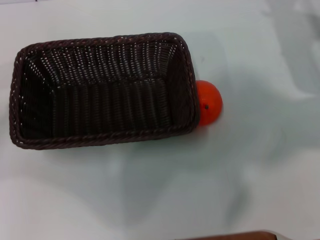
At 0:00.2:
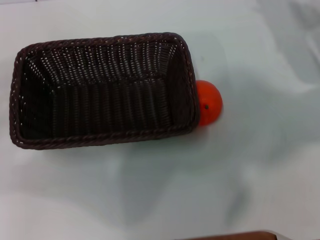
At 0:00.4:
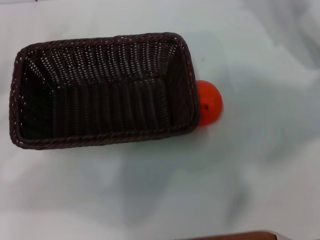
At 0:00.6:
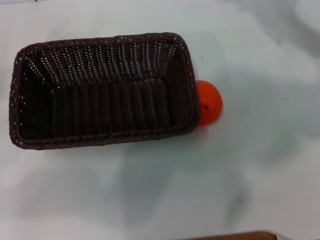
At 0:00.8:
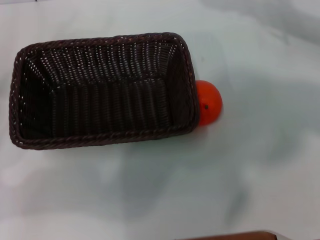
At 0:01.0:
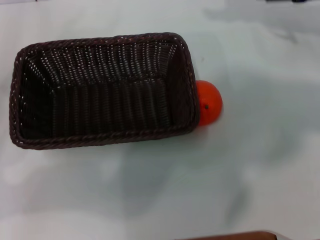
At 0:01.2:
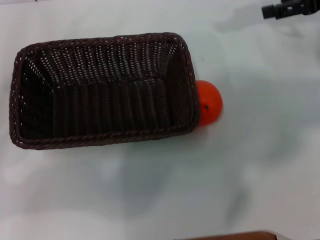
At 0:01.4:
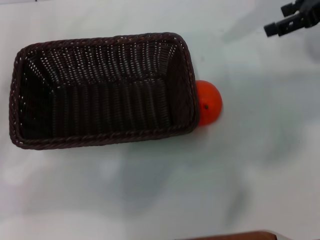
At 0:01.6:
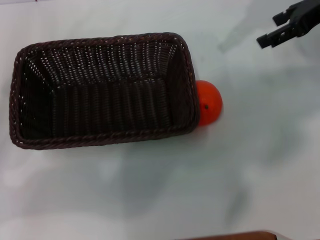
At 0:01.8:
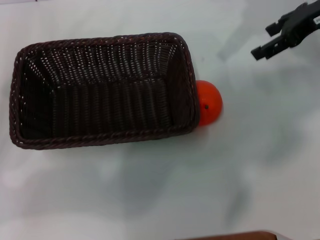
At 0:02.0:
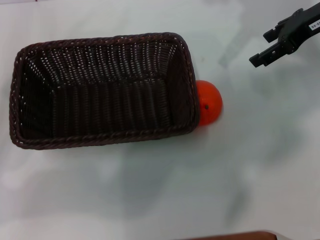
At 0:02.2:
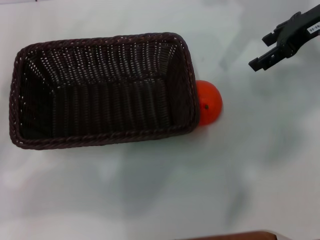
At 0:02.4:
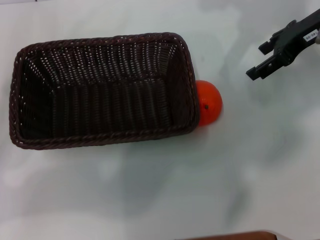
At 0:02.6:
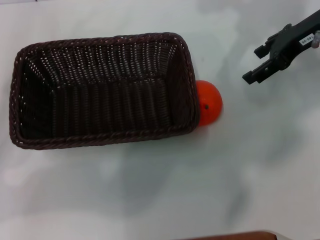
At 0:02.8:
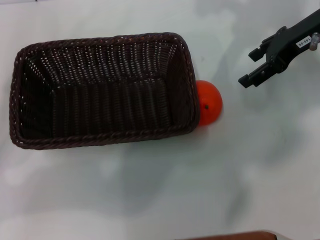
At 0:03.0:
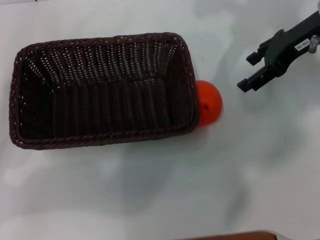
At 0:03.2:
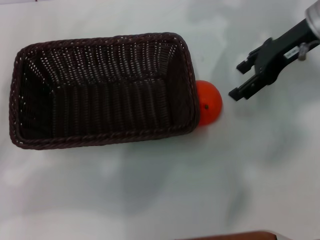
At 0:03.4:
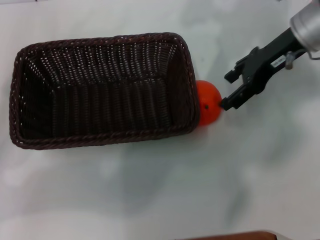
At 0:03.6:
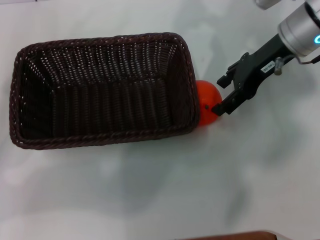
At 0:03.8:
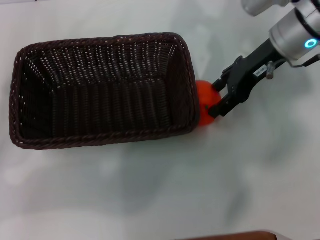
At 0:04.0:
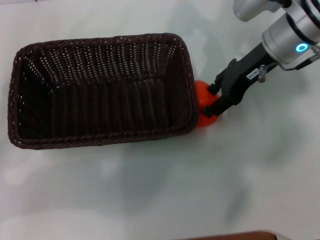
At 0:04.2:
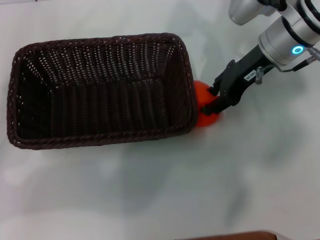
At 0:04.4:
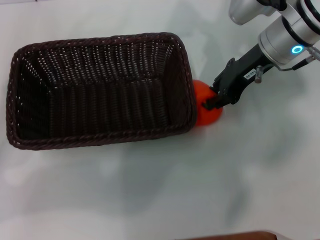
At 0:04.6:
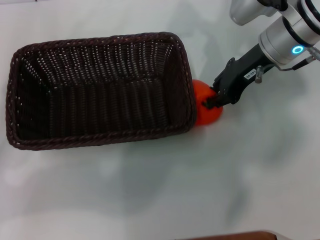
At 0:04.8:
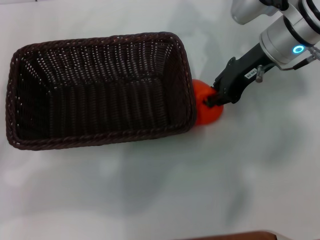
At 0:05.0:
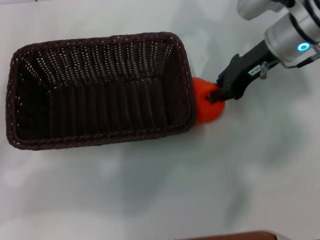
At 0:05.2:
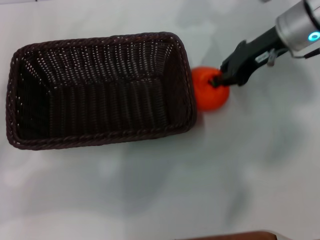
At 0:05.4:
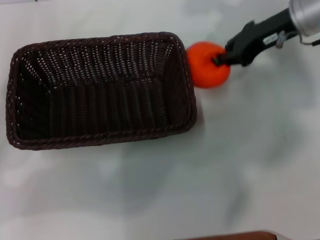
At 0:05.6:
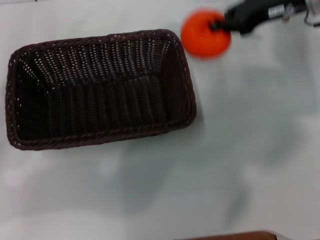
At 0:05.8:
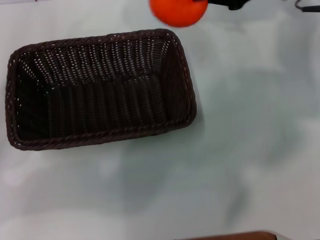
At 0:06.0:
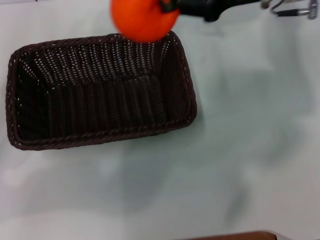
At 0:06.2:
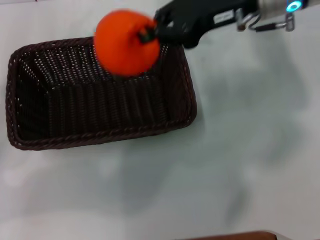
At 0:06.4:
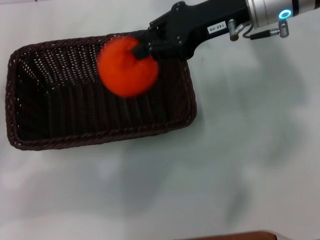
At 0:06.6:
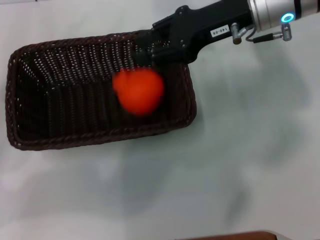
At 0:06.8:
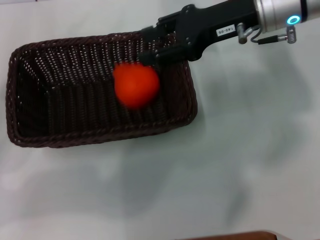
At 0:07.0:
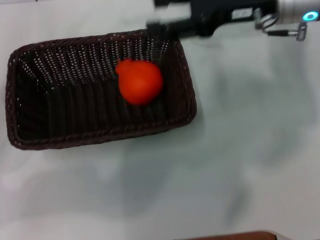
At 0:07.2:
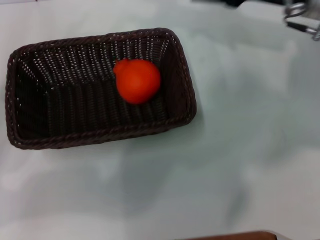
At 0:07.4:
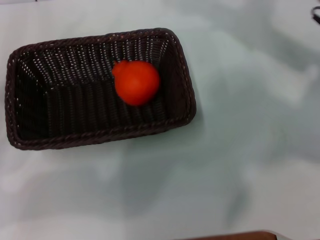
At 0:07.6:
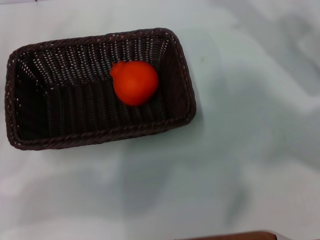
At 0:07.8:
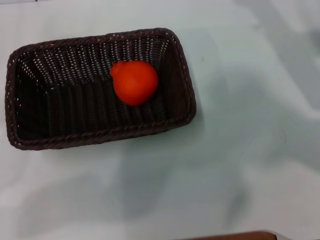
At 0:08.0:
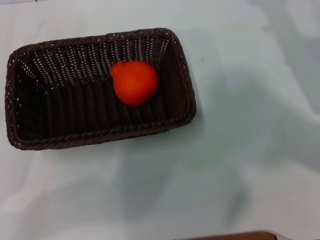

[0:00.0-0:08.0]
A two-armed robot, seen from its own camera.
Task of the whole recording: the left gripper pick up the black basket and place it horizontally in the middle of the table, the right gripper pick up the orange and place it into the black basket.
Step, 0:00.0 to 0:05.4: Pick up the orange with the right gripper.
Step, 0:05.6 to 0:06.6: Place the orange into the dark basket with the right gripper.
0:00.0 to 0:01.6: The right gripper is displaced upward by about 15 cm.
0:01.6 to 0:03.2: The right gripper is displaced to the left by approximately 5 cm.
0:03.2 to 0:04.8: The right gripper moves approximately 5 cm, and closes up.
0:04.8 to 0:06.4: The right gripper is displaced upward by roughly 5 cm.
0:06.4 to 0:08.0: The right gripper goes some 20 cm to the right, downward and backward, and opens up.

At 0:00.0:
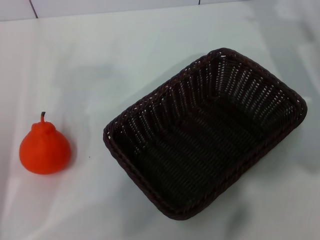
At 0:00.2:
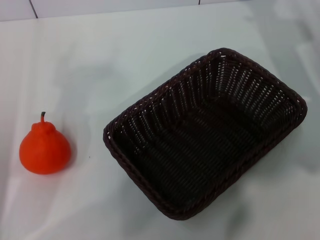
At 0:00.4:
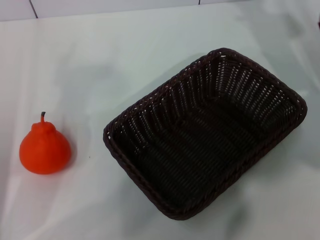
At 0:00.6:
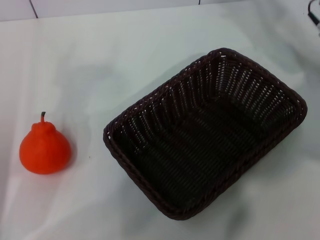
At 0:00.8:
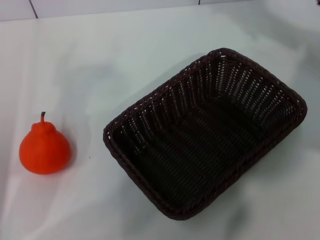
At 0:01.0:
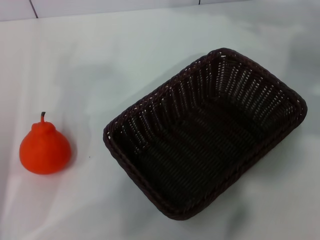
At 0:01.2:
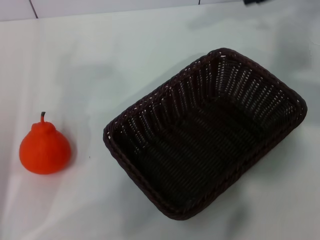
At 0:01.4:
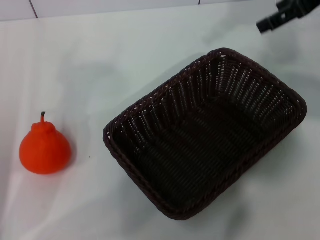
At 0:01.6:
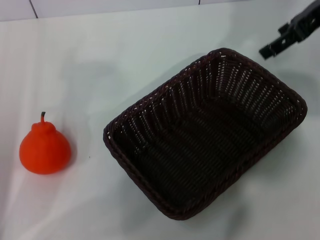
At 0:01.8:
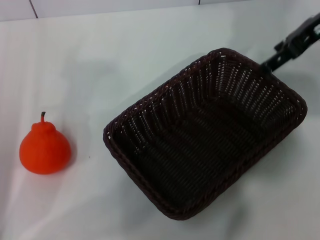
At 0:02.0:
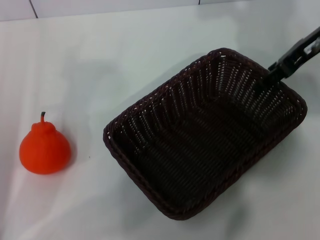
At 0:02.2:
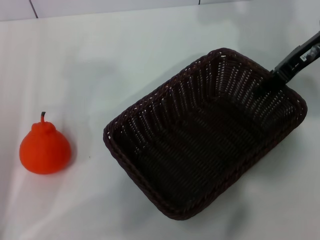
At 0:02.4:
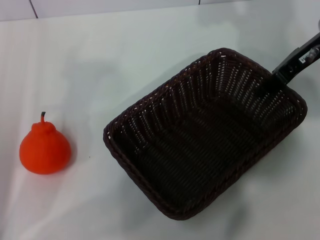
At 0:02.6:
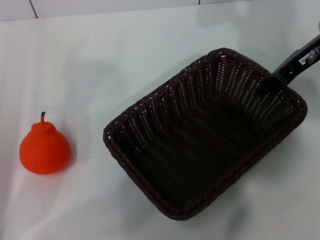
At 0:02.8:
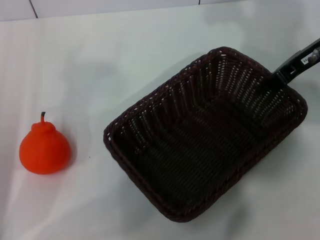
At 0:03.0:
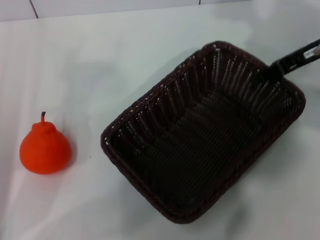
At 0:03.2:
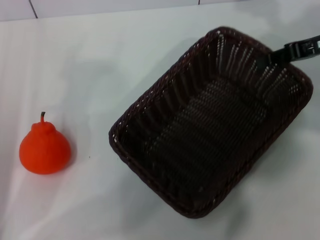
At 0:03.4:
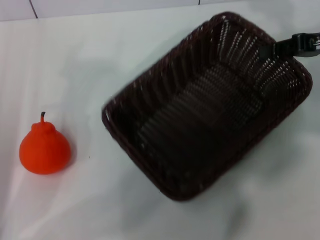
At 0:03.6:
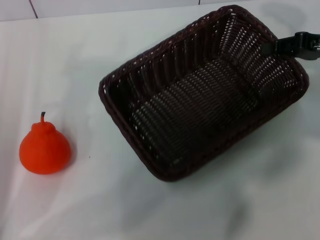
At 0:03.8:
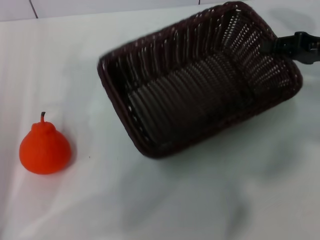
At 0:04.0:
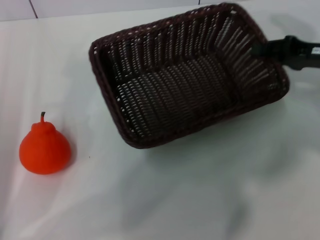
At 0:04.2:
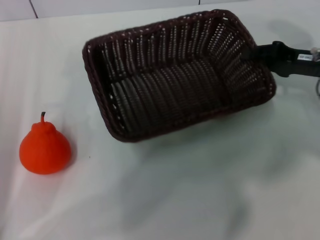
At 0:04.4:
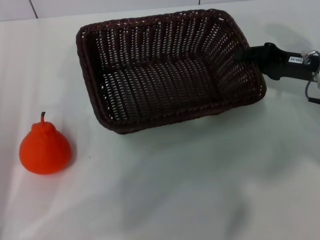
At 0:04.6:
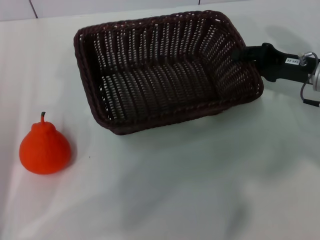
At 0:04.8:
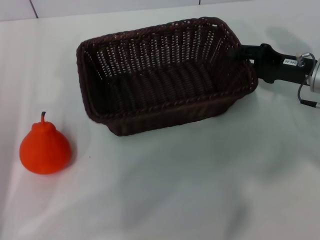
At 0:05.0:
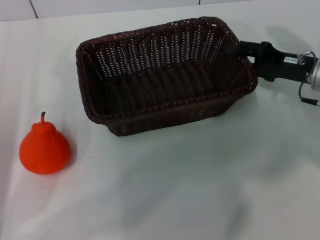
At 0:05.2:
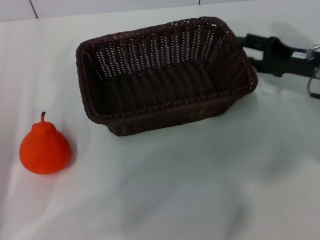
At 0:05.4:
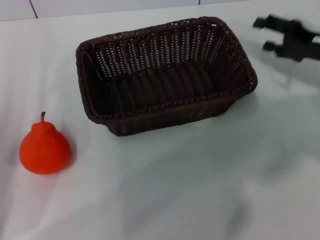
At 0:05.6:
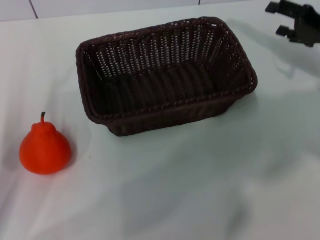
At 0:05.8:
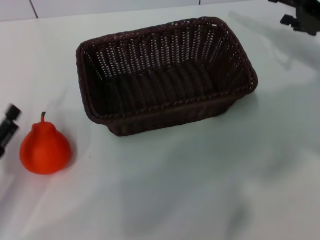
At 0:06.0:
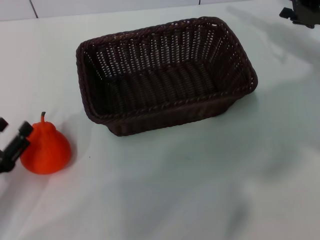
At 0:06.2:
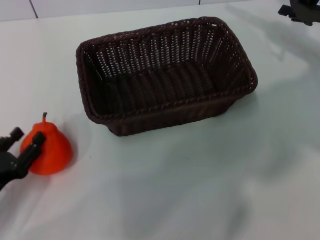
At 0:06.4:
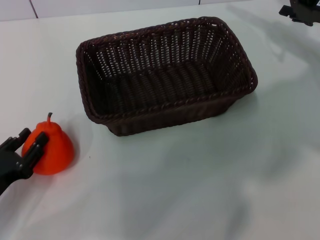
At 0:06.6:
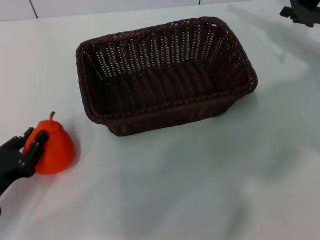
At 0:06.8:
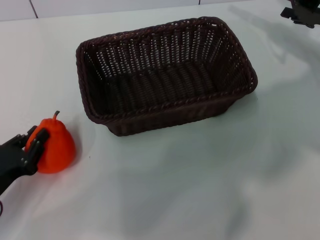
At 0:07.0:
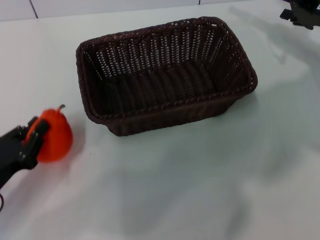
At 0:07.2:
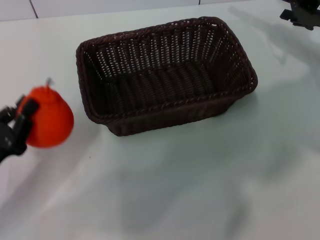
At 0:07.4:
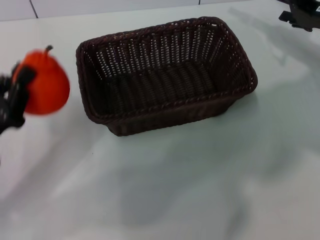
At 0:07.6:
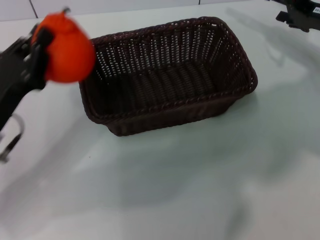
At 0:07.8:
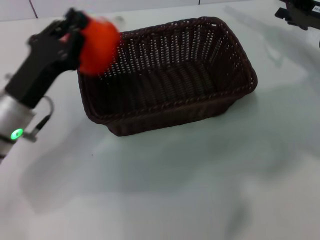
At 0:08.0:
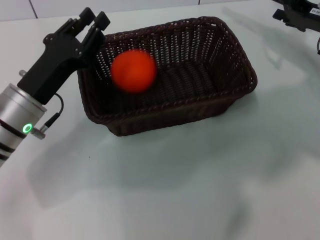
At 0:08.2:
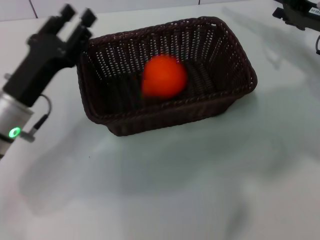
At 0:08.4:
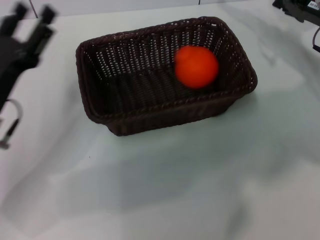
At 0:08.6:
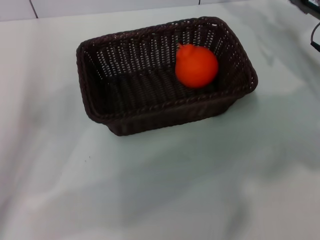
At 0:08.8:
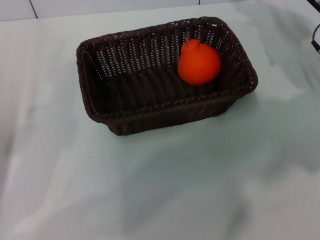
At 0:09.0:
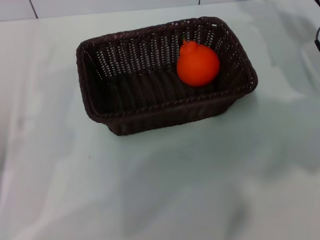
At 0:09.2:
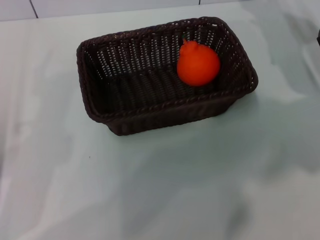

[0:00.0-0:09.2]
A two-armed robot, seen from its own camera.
Task of the whole recording: the right gripper pick up the black basket and place it horizontally in the middle of the table, the left gripper pick up the orange and place it into the black basket.
Step, 0:00.0 to 0:03.2: Pick up the dark basket with the right gripper.
Step, 0:03.6 to 0:05.2: Place the dark basket in the center of view with the right gripper.
Step, 0:05.4 to 0:07.2: Pick up the orange with the left gripper.
Step, 0:07.4 to 0:08.0: Place the orange into the dark basket with the left gripper.
0:00.0 to 0:01.6: The right gripper moves upward, about 15 cm.
0:01.6 to 0:03.0: The right gripper heads downward, covering approximately 10 cm, and closes its fingers.
0:03.0 to 0:04.6: The right gripper is displaced downward by approximately 10 cm.
0:04.6 to 0:06.2: The left gripper heads downward, covering some 5 cm. Meanwhile the right gripper travels forward by roughly 5 cm, and opens.
0:06.2 to 0:07.6: The left gripper goes approximately 10 cm forward, upward and to the right, and closes its fingers.
0:07.6 to 0:09.2: The left gripper shifts some 10 cm to the left and backward, and opens up.
